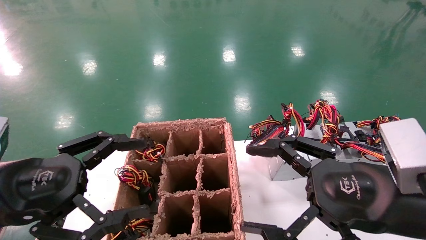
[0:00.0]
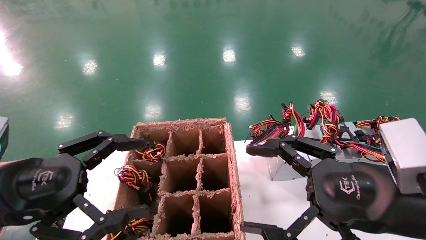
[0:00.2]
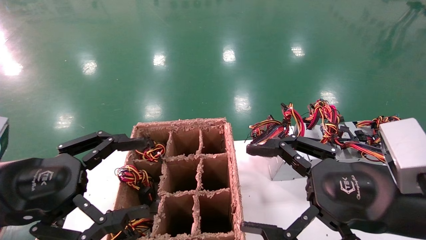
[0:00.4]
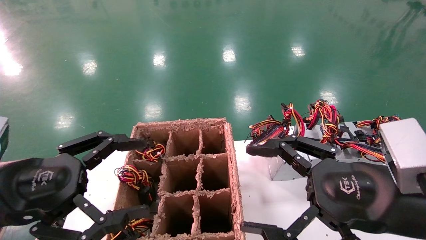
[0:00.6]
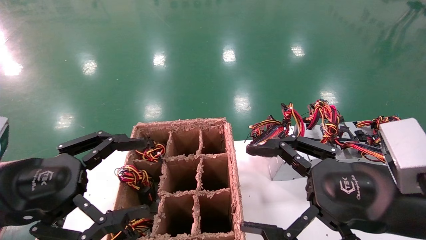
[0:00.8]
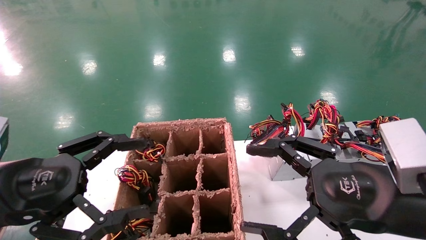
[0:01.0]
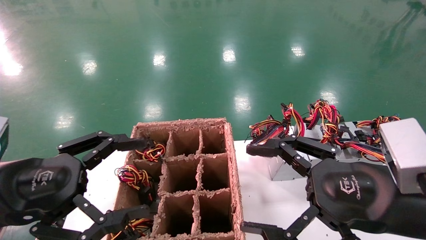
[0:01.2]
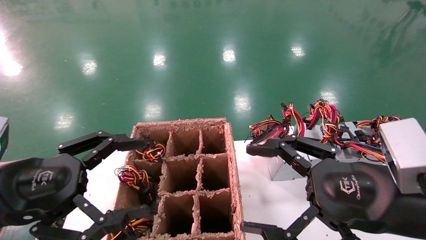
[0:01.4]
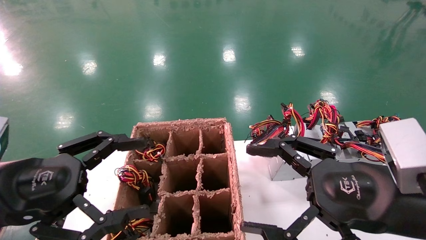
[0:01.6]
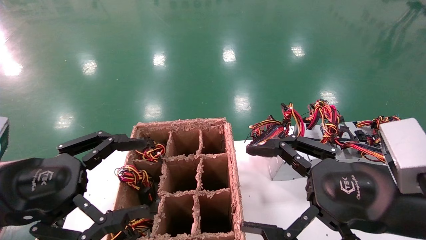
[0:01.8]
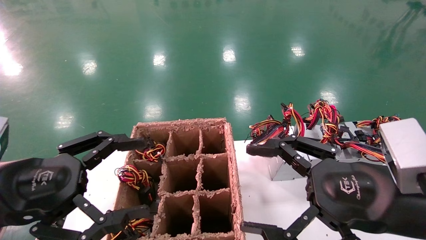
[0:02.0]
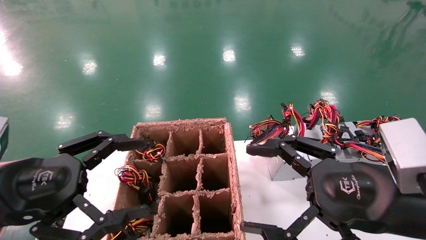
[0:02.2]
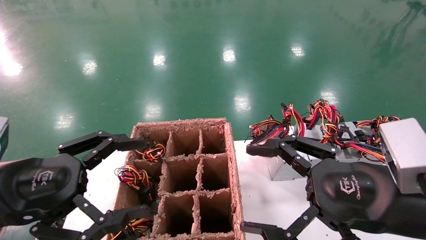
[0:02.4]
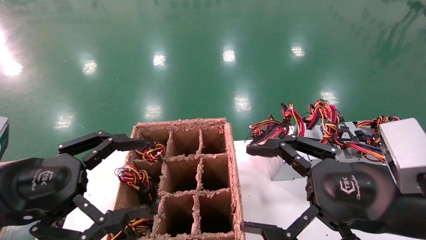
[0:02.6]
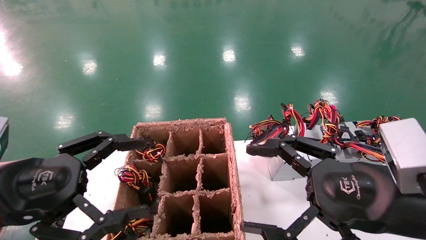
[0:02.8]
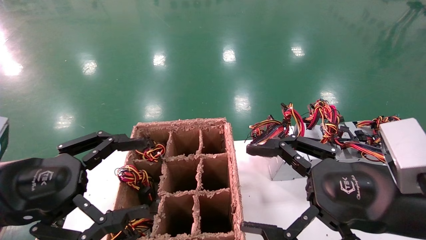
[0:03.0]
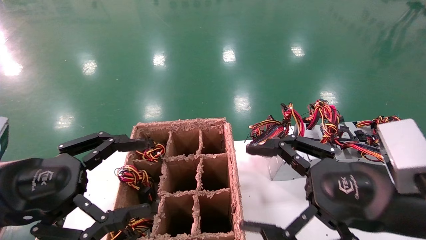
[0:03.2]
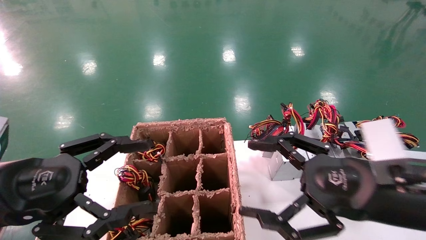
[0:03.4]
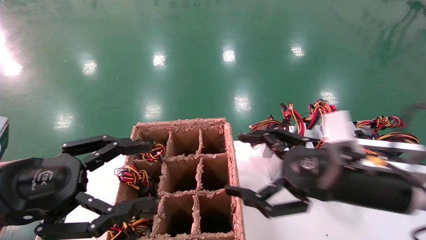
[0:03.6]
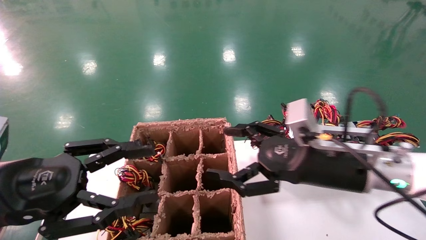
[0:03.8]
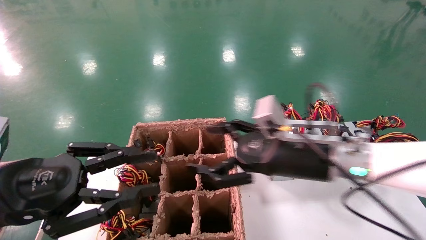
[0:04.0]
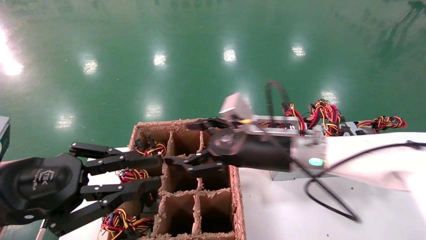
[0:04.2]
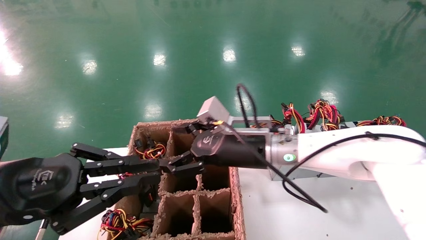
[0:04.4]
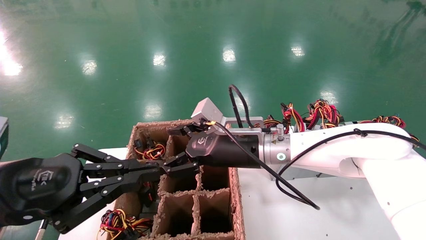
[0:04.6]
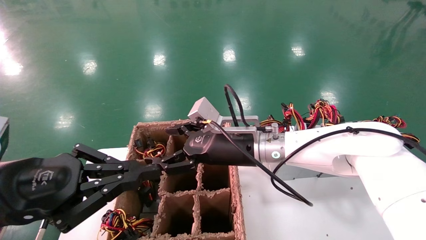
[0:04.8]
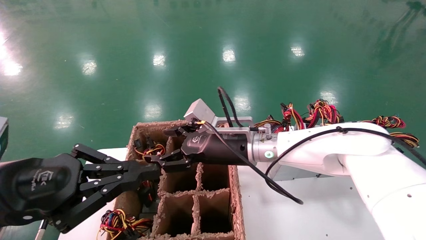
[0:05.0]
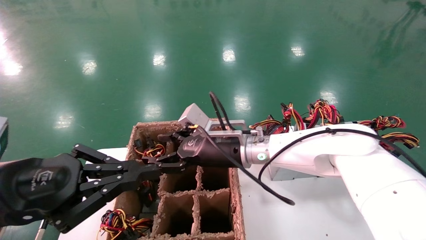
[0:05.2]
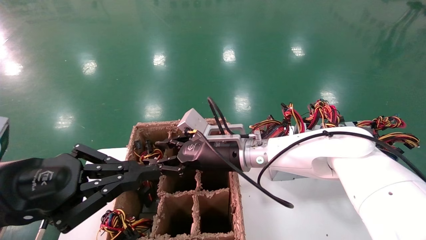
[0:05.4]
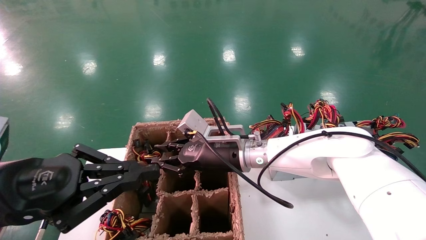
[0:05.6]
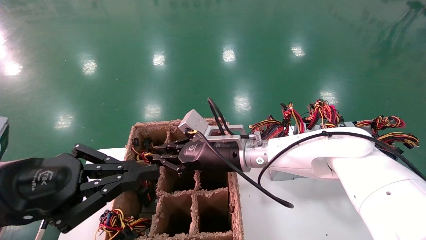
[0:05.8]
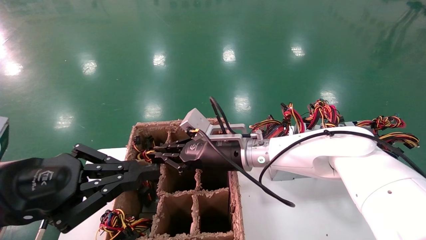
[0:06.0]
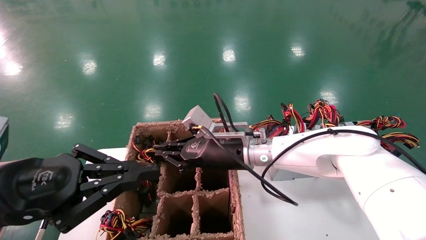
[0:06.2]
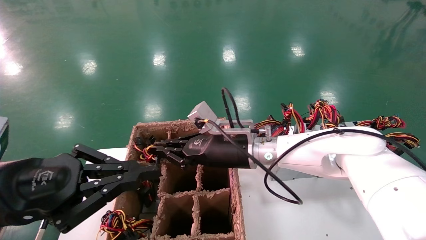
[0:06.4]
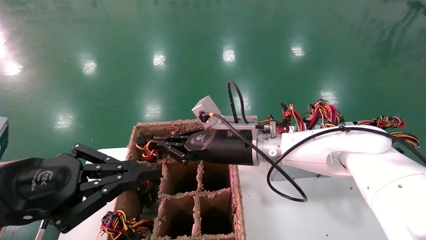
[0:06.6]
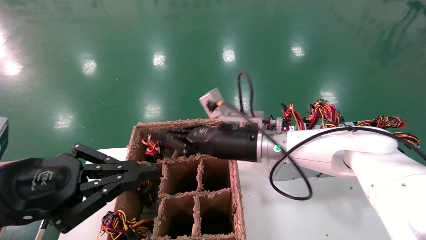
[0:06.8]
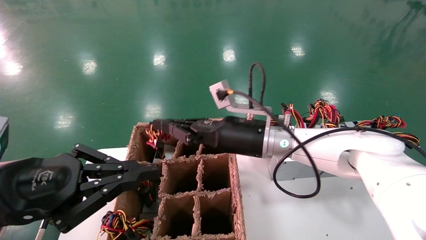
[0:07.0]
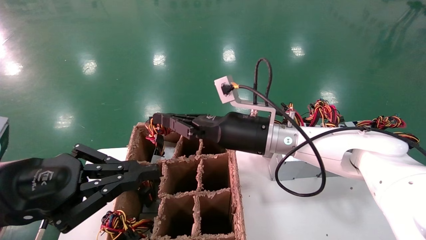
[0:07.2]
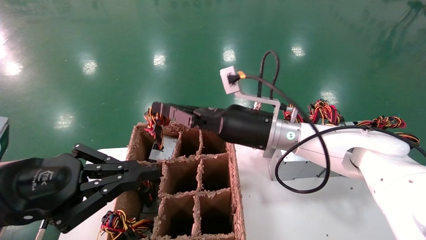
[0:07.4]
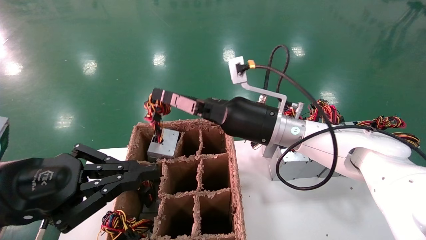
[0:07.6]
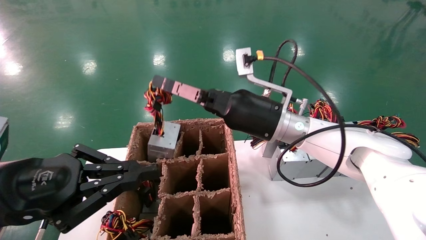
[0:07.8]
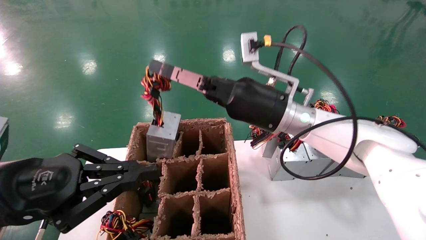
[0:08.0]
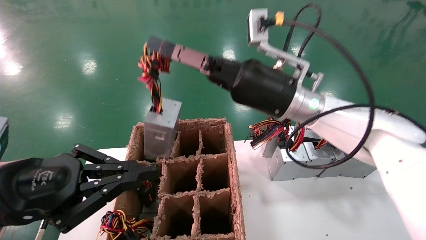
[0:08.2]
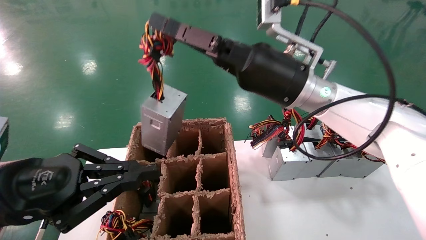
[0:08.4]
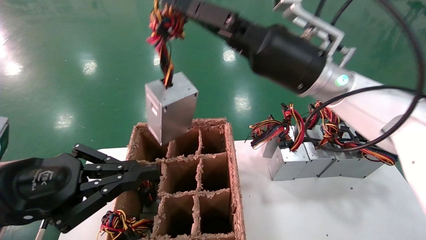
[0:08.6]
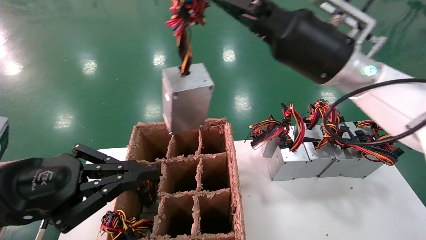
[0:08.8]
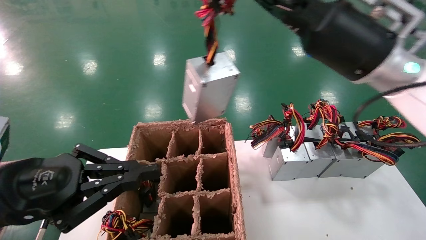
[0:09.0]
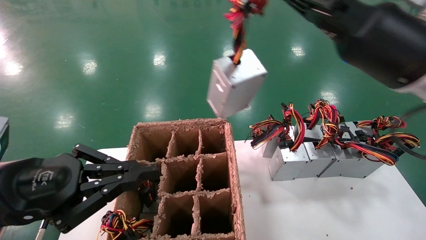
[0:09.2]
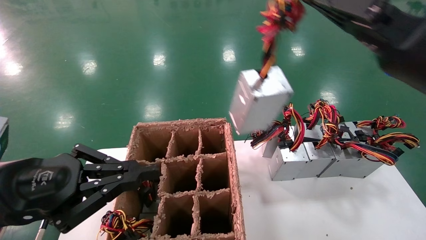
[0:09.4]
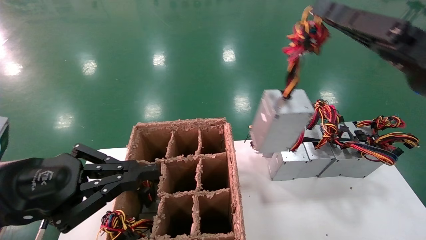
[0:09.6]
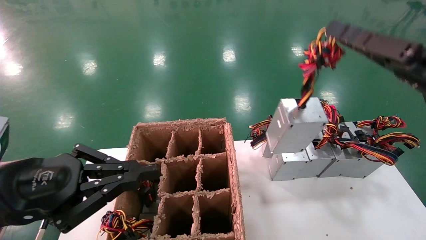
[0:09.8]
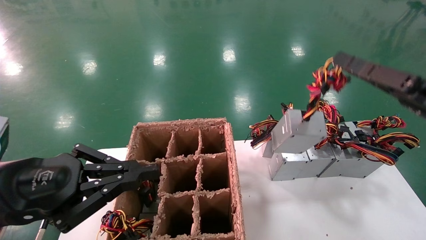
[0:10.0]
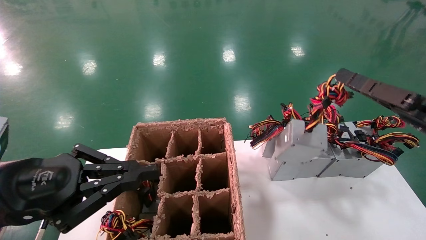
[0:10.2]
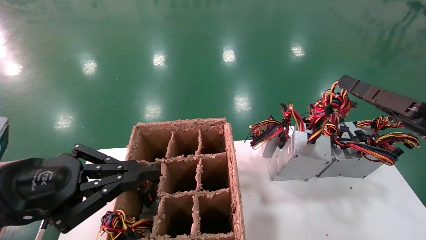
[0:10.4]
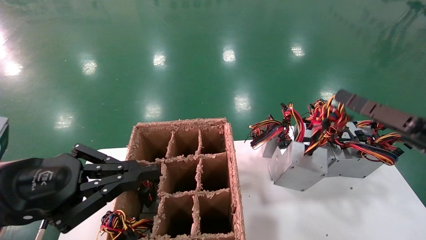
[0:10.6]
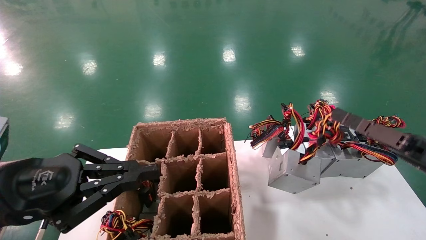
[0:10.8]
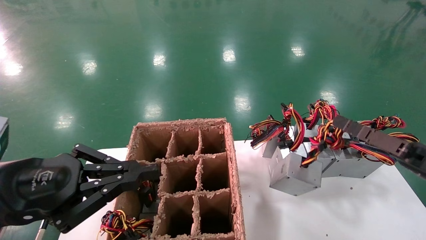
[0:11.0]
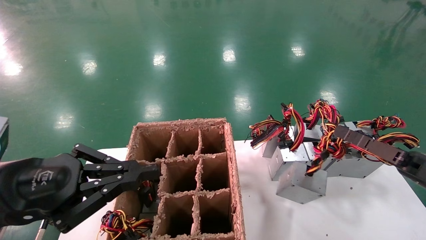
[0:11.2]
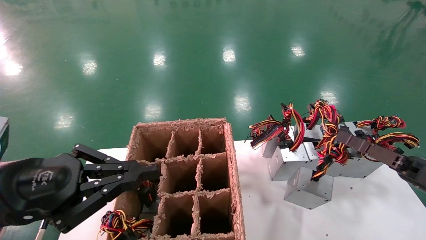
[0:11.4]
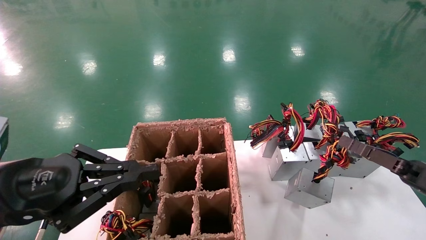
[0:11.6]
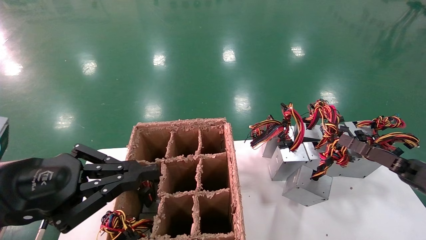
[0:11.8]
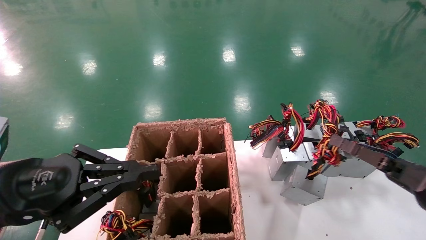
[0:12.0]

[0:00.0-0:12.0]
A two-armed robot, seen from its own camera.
Step, 0:03.6 to 0:05.8: Grab the main unit power supply from the containment box.
0:00.0 to 0:03.0: Both grippers stay put.
0:03.0 to 0:04.4: The left gripper closes its fingers; the right gripper shifts some 25 cm forward and to the left.
0:04.4 to 0:06.0: The right gripper ends up approximately 5 cm from where it was, and closes its fingers.
0:06.0 to 0:07.6: The right gripper shifts about 5 cm upward.
0:07.6 to 0:09.0: The right gripper moves upward, to the right and backward, roughly 20 cm.
0:09.0 to 0:10.4: The right gripper travels to the right, downward and backward by some 20 cm.
0:10.4 to 0:12.0: The right gripper goes approximately 10 cm downward.

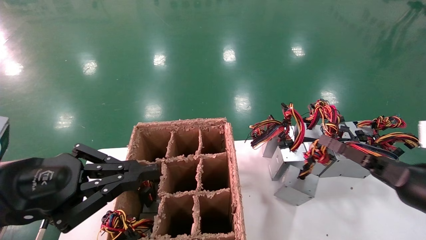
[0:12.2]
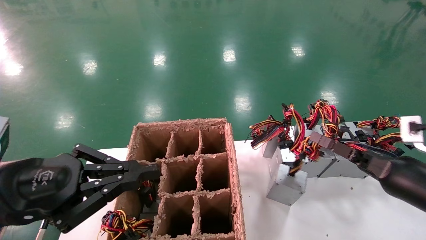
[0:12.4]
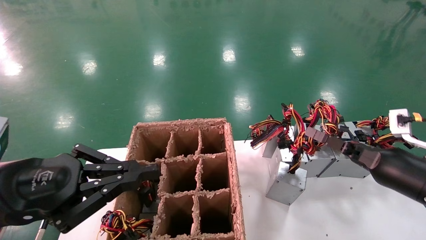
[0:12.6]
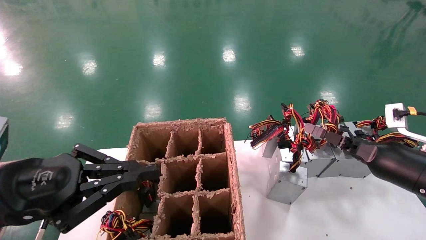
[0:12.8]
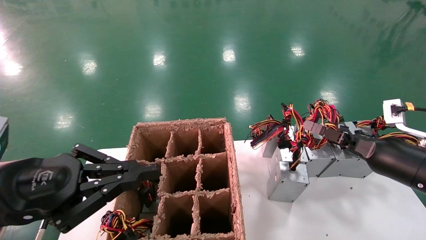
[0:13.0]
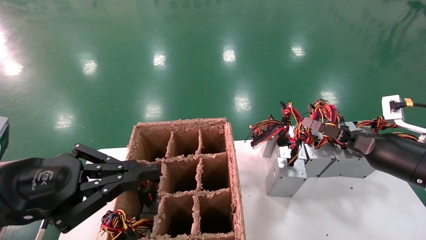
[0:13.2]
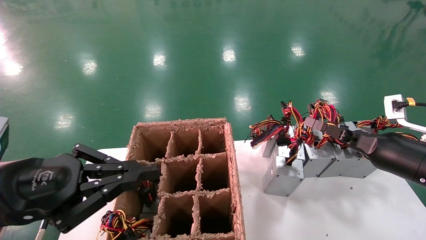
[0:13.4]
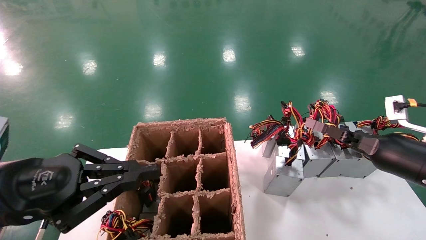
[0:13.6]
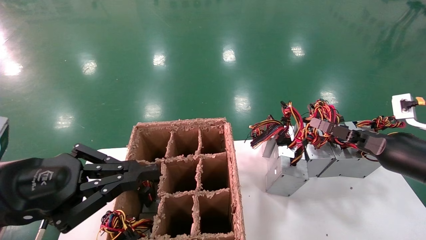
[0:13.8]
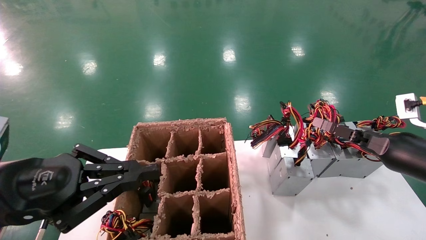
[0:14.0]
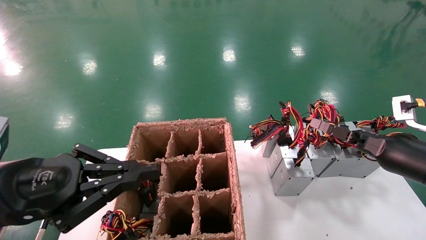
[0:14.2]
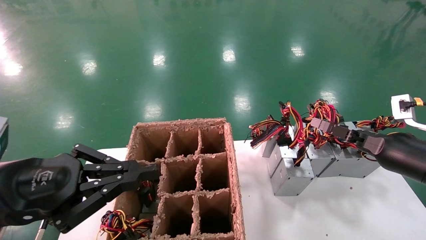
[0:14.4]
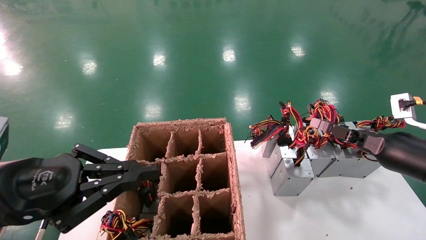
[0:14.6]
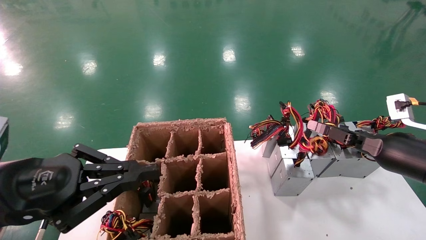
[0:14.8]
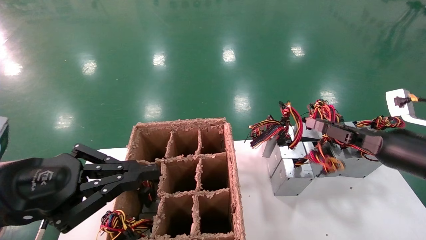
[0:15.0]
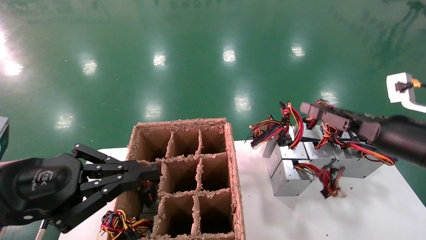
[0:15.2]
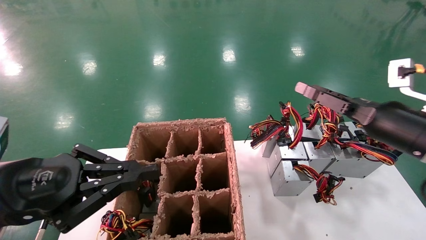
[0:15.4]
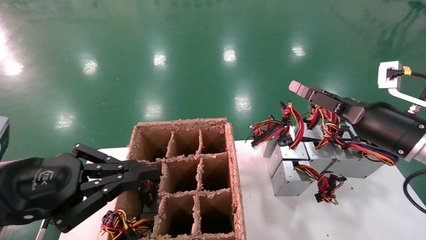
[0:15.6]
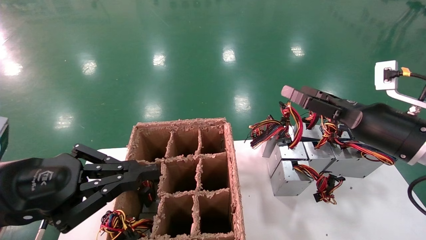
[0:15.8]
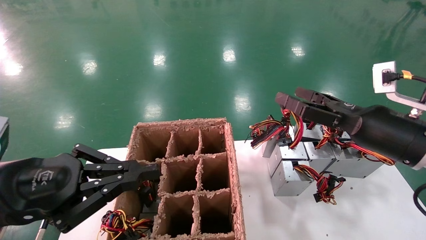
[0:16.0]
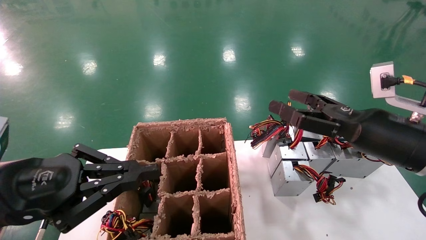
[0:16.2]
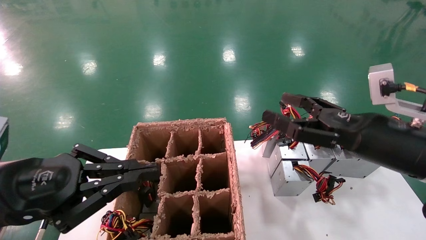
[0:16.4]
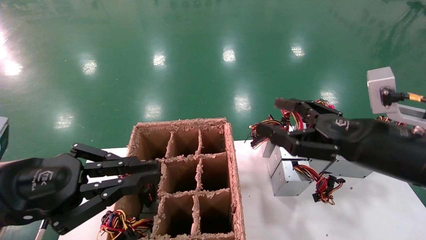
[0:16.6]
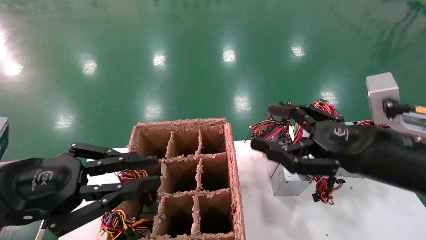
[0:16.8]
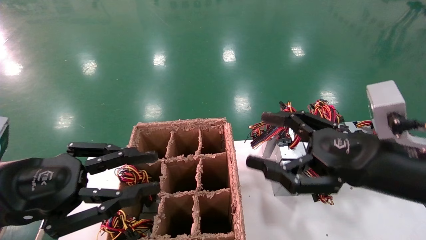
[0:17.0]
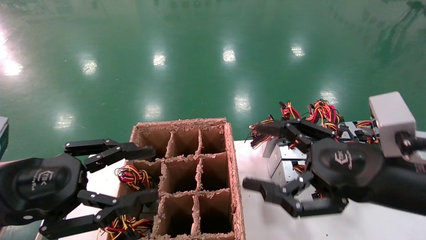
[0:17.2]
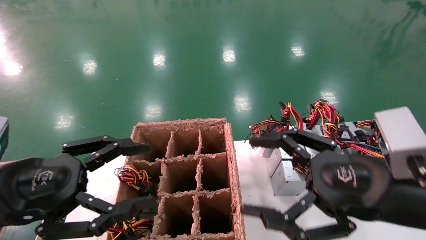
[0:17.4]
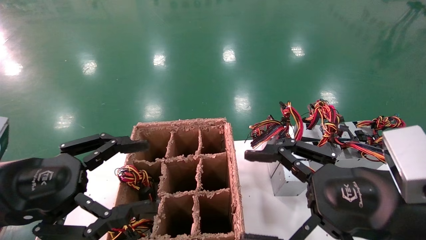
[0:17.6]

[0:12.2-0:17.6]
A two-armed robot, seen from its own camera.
Step, 0:12.2 to 0:15.0: Place the main unit power supply in the designated area.
0:12.2 to 0:13.6: The right gripper shifts approximately 5 cm forward.
0:13.6 to 0:15.0: The grippers make only small movements.
0:15.0 to 0:16.2: The right gripper goes about 5 cm to the left, and opens.
0:16.2 to 0:17.6: The right gripper is displaced backward and to the left by roughly 10 cm; the left gripper opens up.
